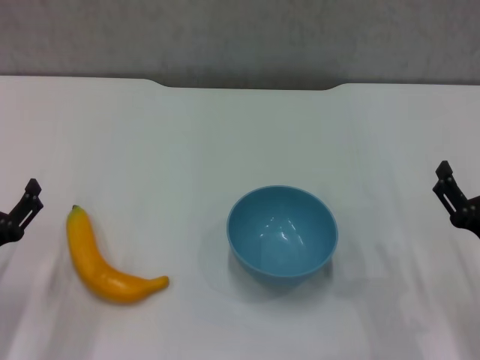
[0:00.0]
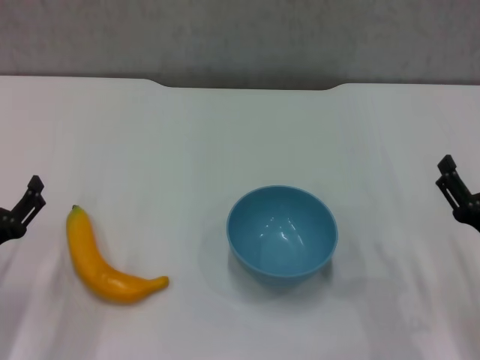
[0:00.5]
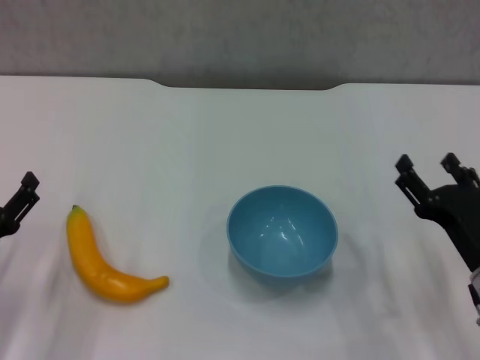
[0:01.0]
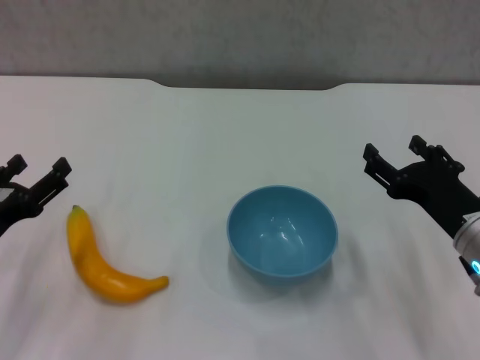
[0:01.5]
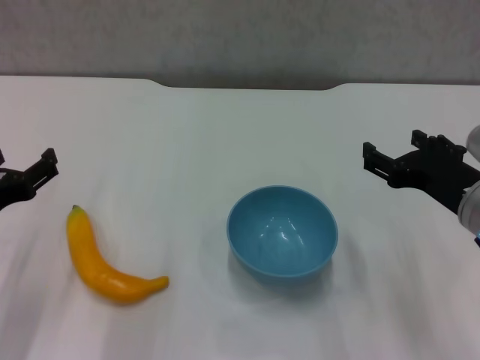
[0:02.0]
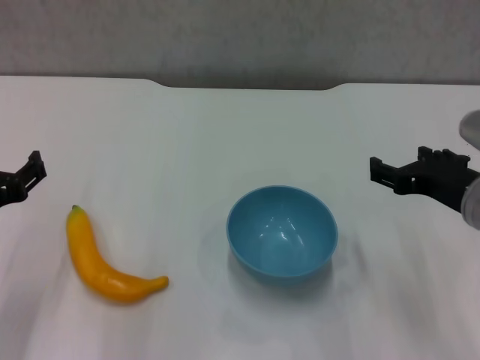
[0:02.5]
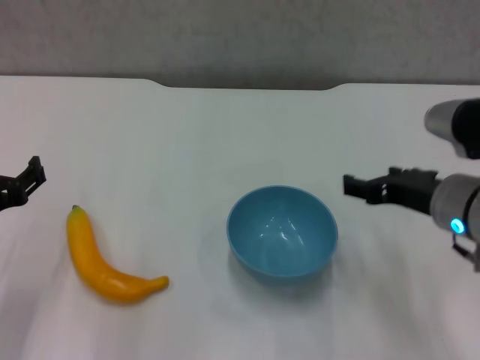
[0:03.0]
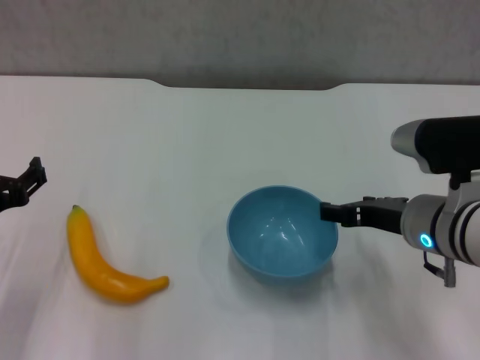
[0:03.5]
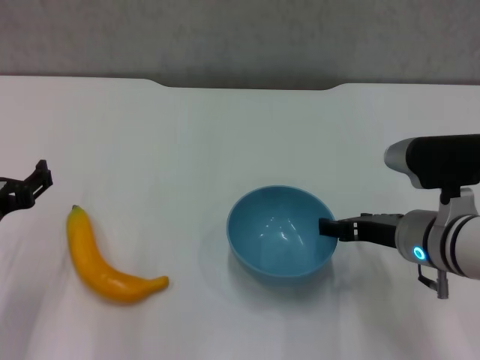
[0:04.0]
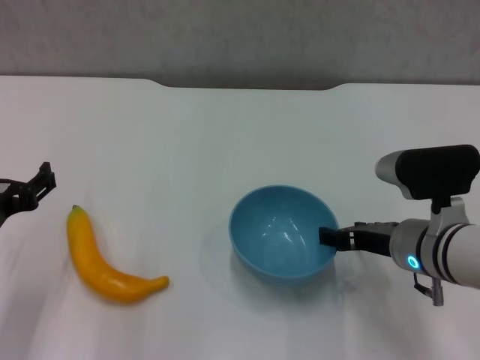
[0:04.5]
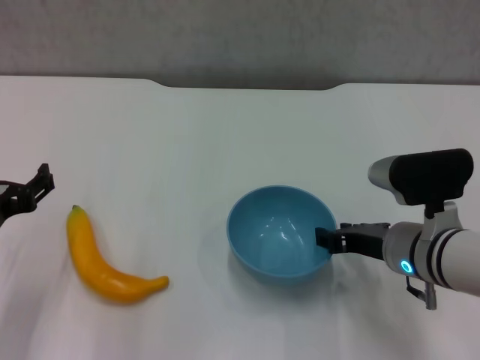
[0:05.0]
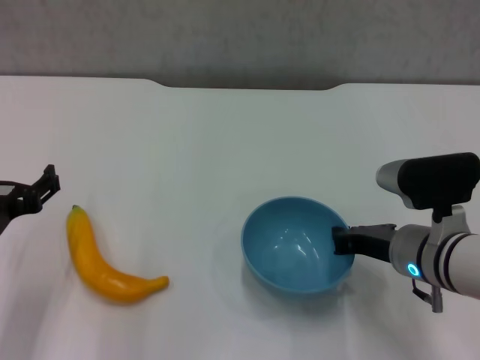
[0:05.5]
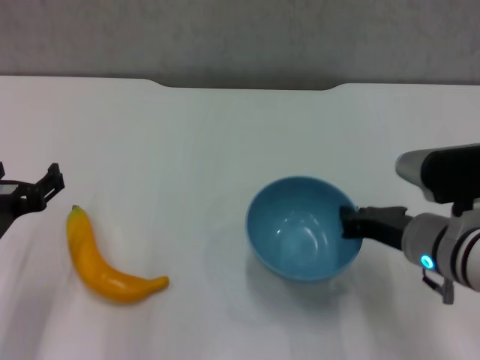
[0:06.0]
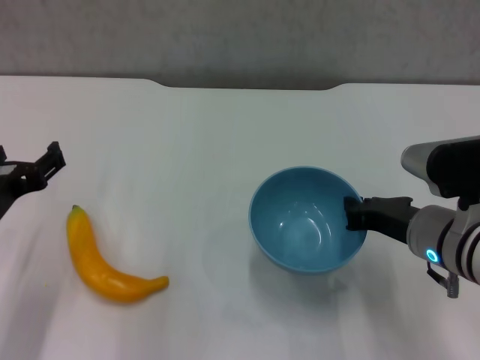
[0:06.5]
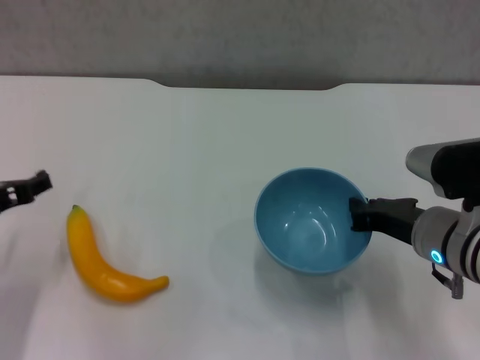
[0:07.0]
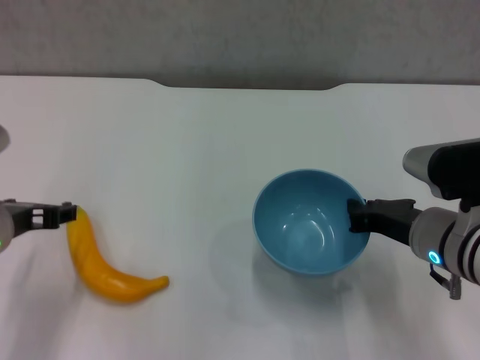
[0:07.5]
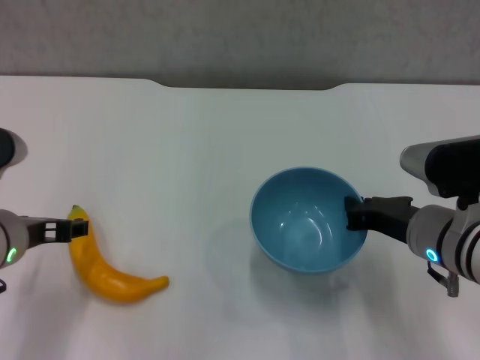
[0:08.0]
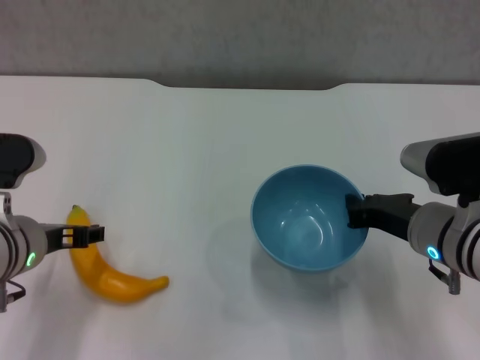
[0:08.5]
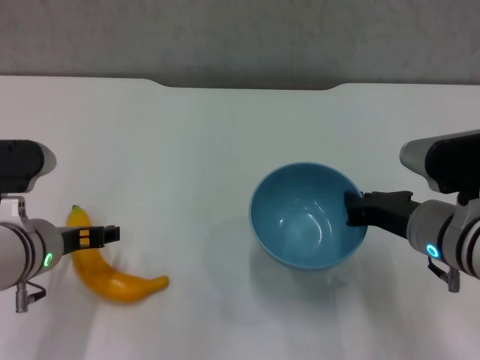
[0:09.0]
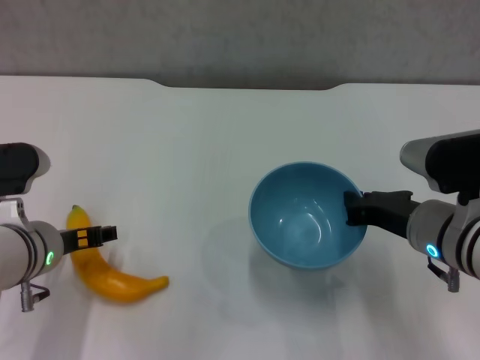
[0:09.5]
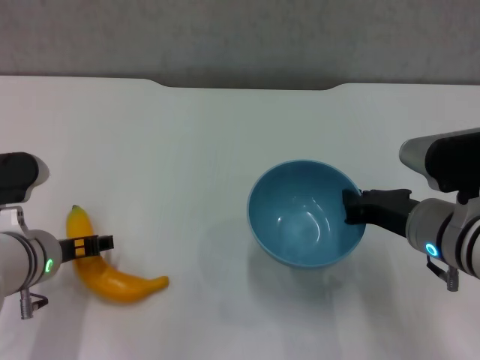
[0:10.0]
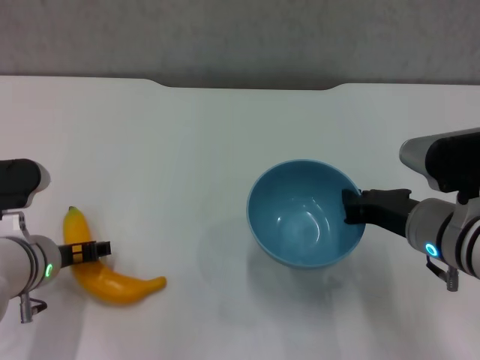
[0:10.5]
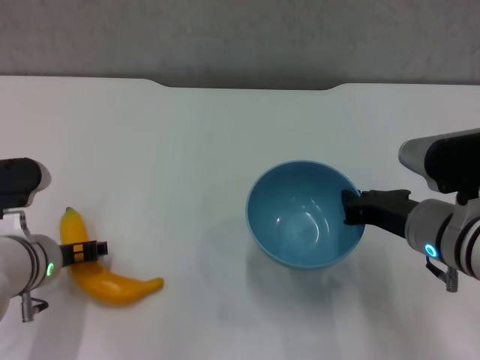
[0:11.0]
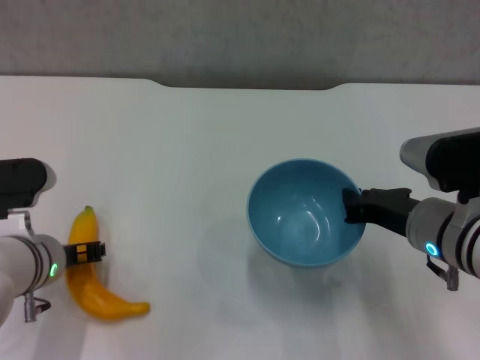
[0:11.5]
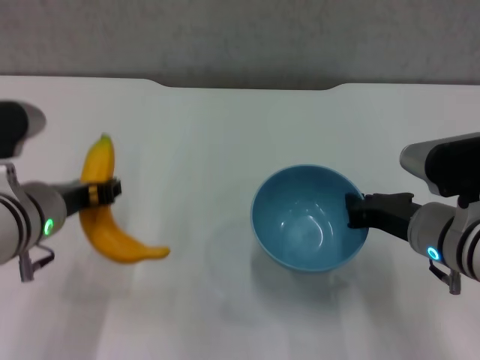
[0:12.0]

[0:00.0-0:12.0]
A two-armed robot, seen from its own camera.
Step, 0:00.0 to 0:05.5: Grasp the blue bowl with right gripper.
Step, 0:06.5 to 0:11.0: Grasp the banana with left gripper.
0:00.0 to 0:02.0: The right gripper travels upward, forward and to the left by some 10 cm, while the left gripper shifts approximately 10 cm upward.
0:02.0 to 0:04.0: The right gripper moves about 5 cm.
0:04.0 to 0:06.0: The right gripper closes its fingers.
0:06.0 to 0:08.0: The left gripper ends up roughly 5 cm from where it was.
0:08.0 to 0:10.0: The left gripper ends up some 5 cm from where it was.
0:10.0 to 0:12.0: The left gripper travels upward by about 5 cm, and closes.

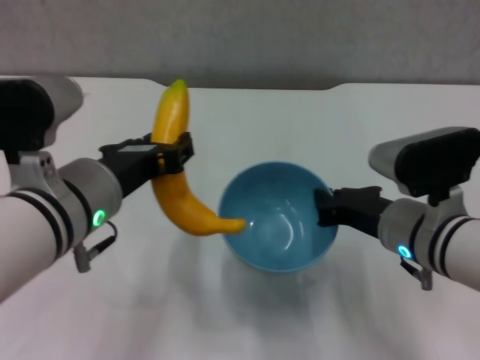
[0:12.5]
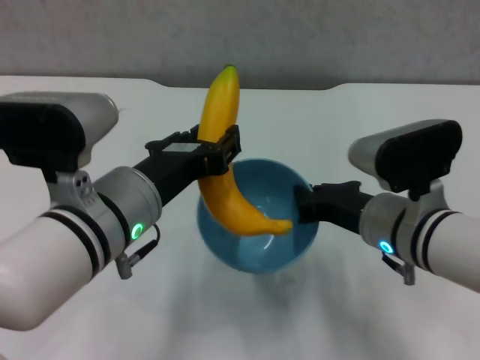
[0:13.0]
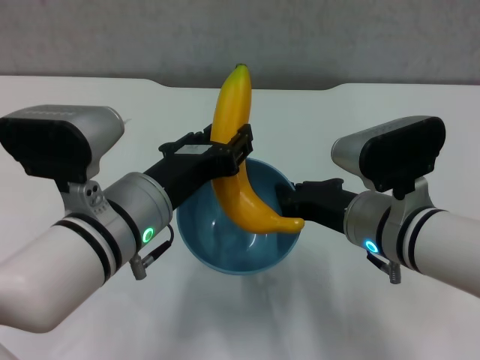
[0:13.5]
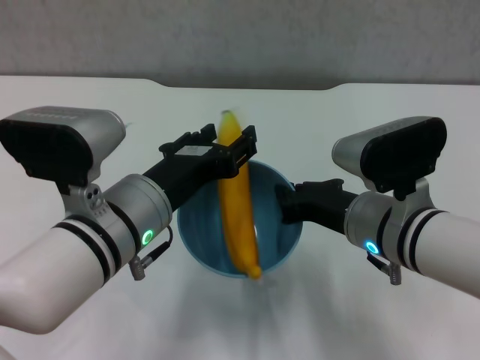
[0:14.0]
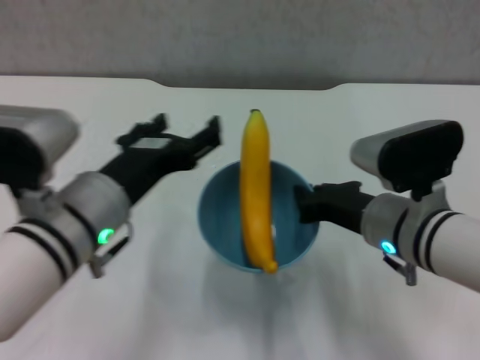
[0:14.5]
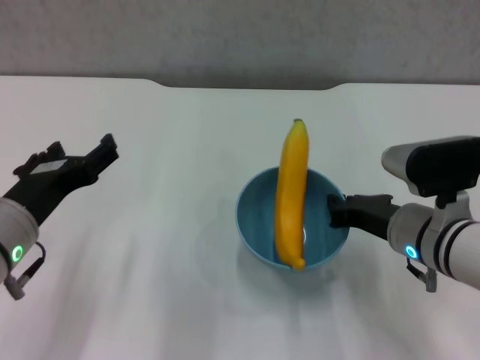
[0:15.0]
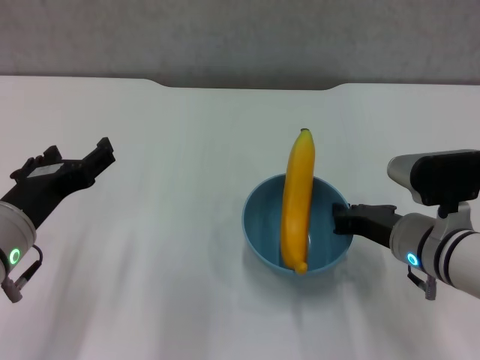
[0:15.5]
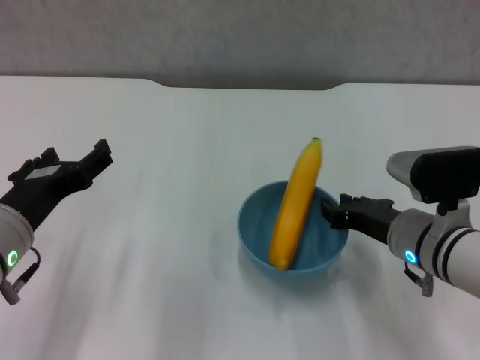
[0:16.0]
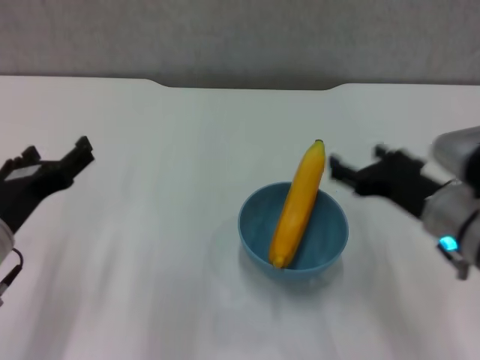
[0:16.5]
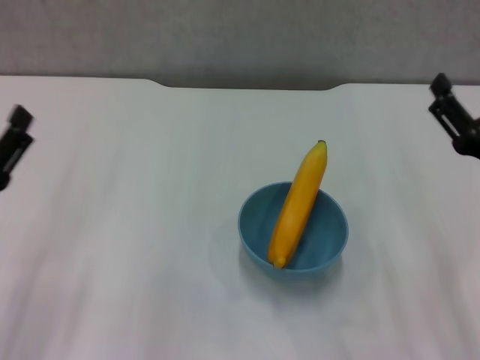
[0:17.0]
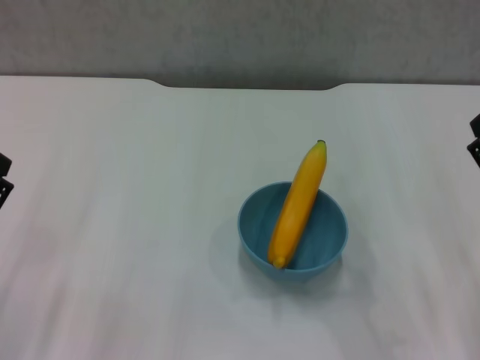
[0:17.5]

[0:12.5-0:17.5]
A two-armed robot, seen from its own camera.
Step, 0:12.5 to 0:14.0: Place the banana in the blue bowl with left gripper.
Step, 0:14.5 to 0:16.0: Place the bowl on the table with right gripper.
0:12.5 to 0:15.0: The left gripper goes approximately 10 cm to the left and downward, and opens its fingers.
0:15.0 to 0:17.5: The right gripper is displaced backward and to the right by roughly 15 cm, and opens up. Meanwhile the left gripper moves to the left, downward and backward, some 10 cm.
